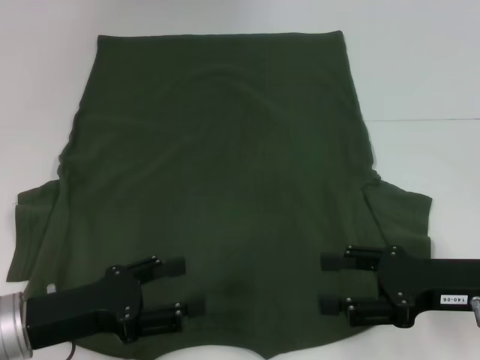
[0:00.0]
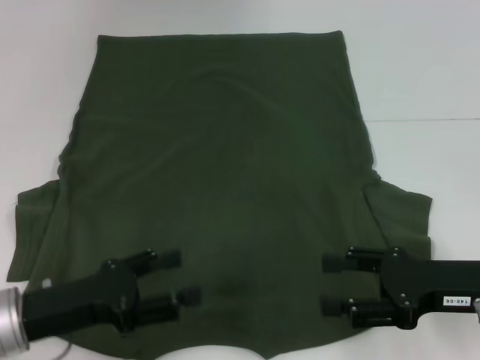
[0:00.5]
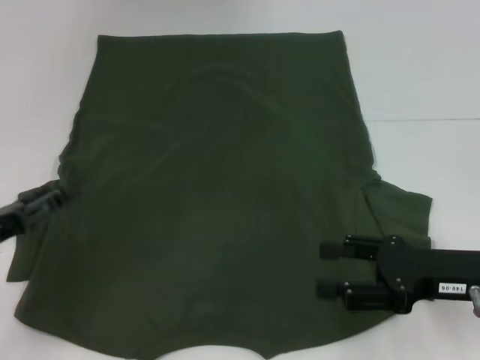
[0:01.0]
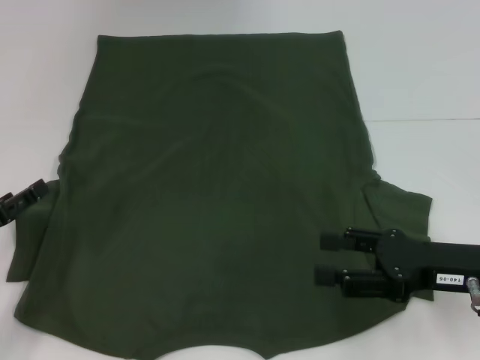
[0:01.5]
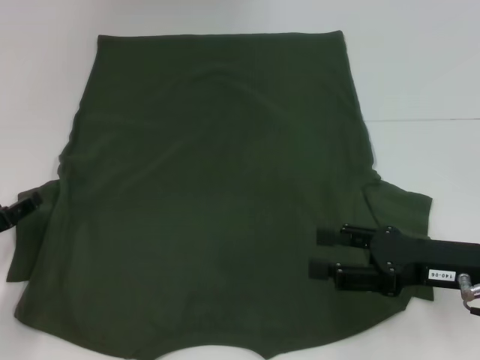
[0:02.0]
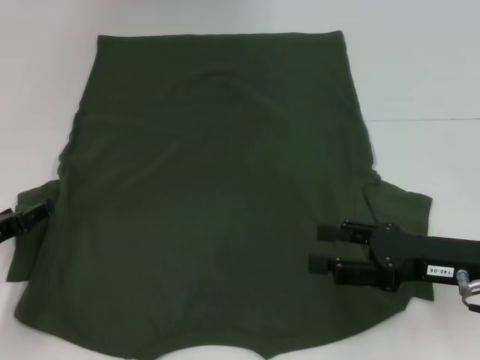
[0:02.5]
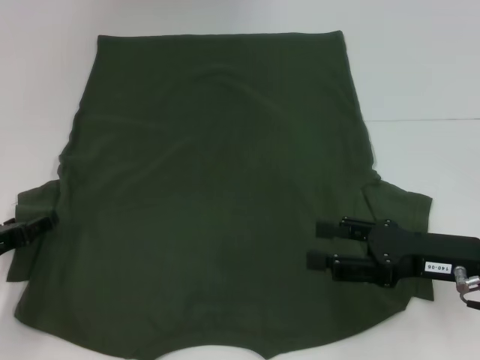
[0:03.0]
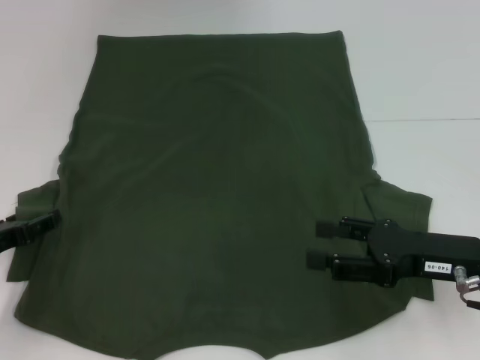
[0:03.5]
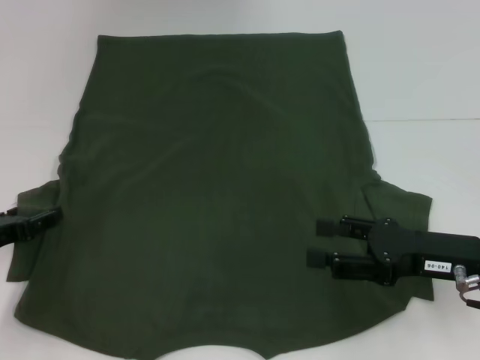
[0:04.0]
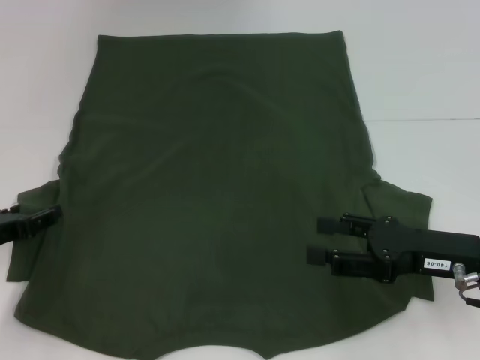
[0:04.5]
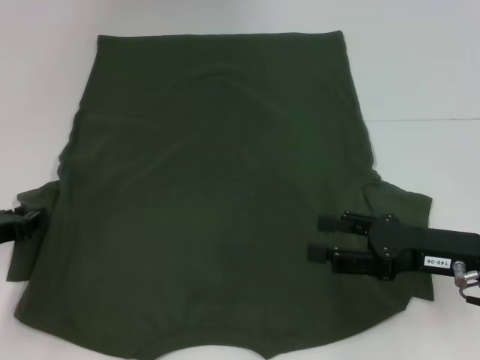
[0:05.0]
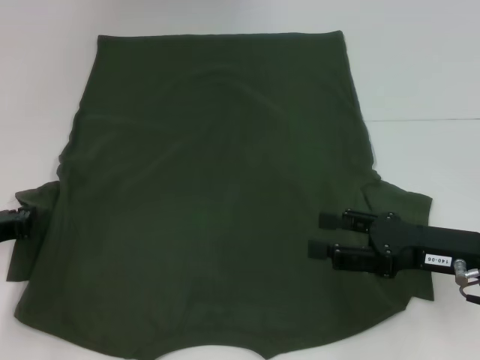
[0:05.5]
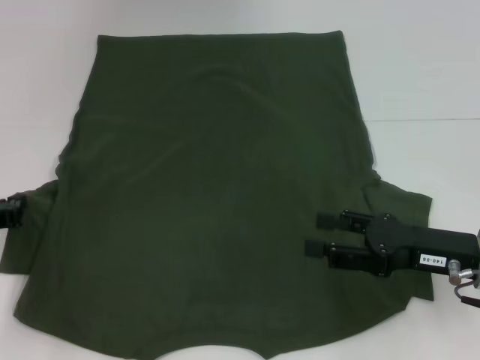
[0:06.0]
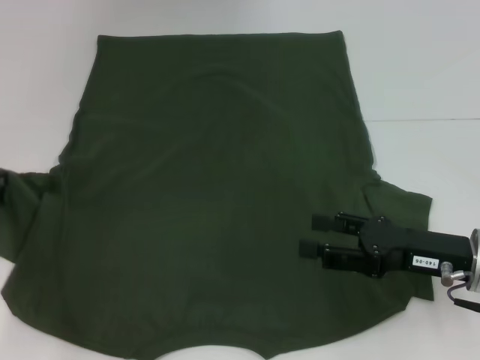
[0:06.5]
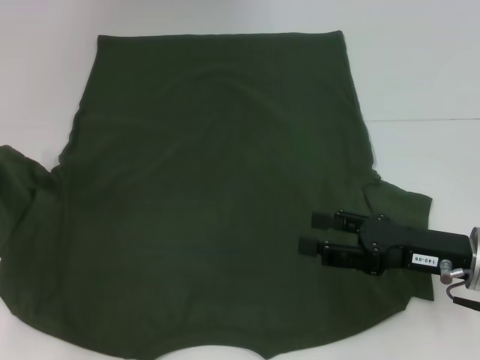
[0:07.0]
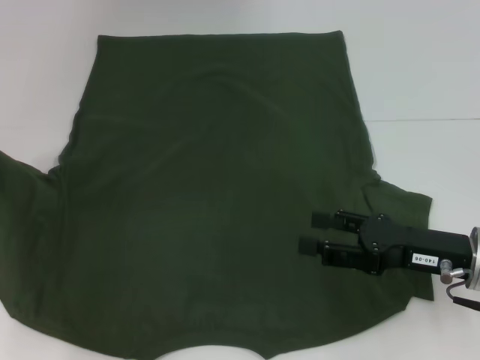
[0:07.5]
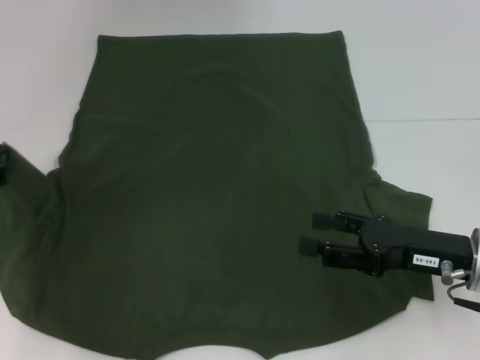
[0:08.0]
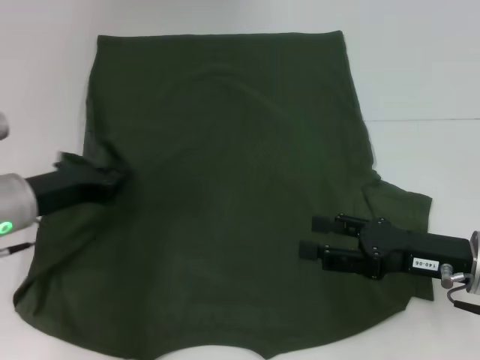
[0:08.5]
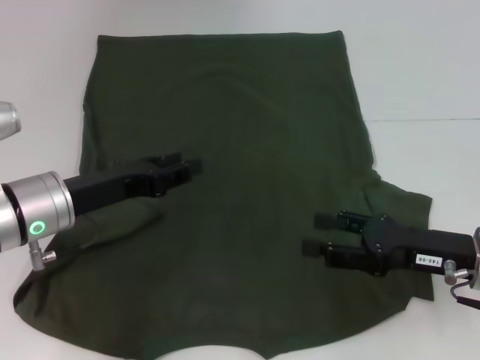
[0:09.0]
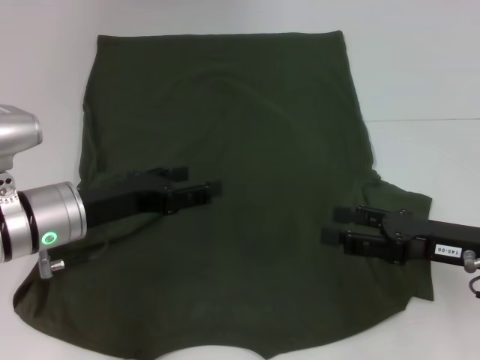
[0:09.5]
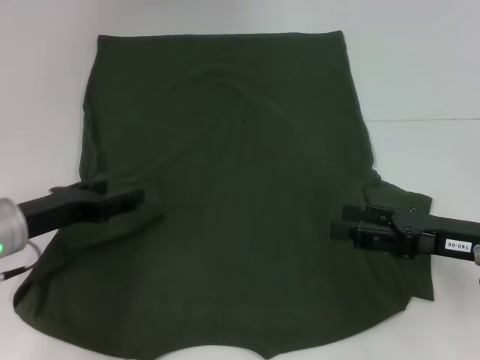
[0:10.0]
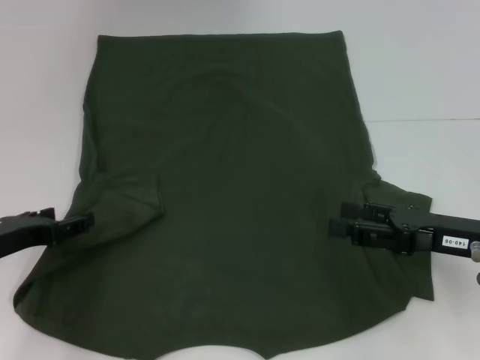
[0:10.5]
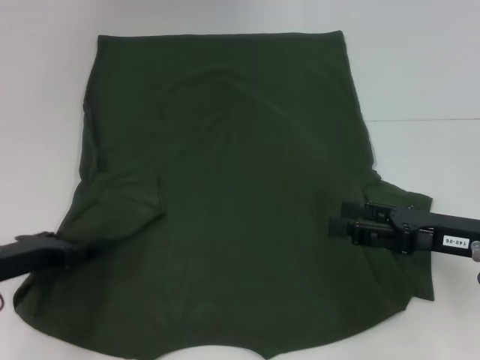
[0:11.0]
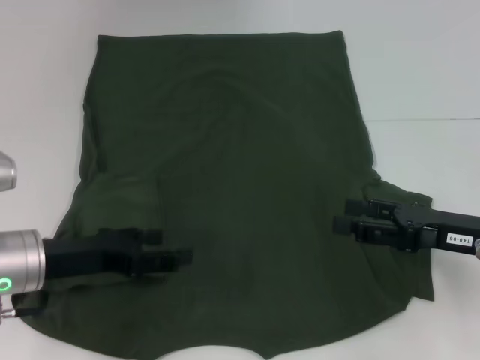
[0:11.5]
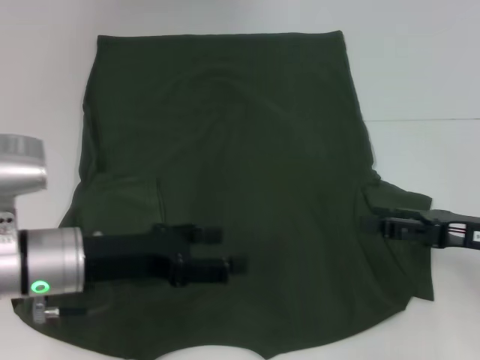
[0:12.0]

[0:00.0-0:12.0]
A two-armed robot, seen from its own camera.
Step, 0:00.0 to 0:12.0: Fold the bottom left sleeve with your left hand.
0:00.0 to 0:02.0: The left gripper travels to the left and forward by approximately 10 cm.
0:02.0 to 0:04.0: There are only small adjustments of the grippers.
0:04.0 to 0:06.0: The left gripper closes its fingers.
0:06.0 to 0:08.0: The left gripper shifts by about 5 cm.
0:08.0 to 0:10.0: The left gripper shifts approximately 5 cm to the right, and opens up.
0:10.0 to 0:12.0: The left gripper goes approximately 5 cm to the right.

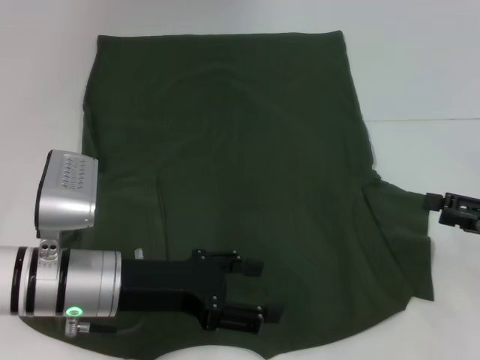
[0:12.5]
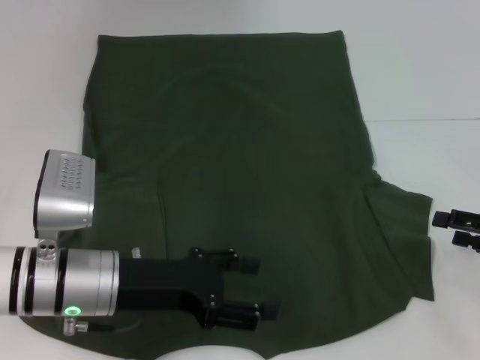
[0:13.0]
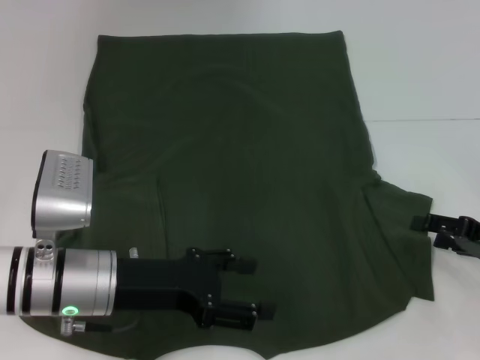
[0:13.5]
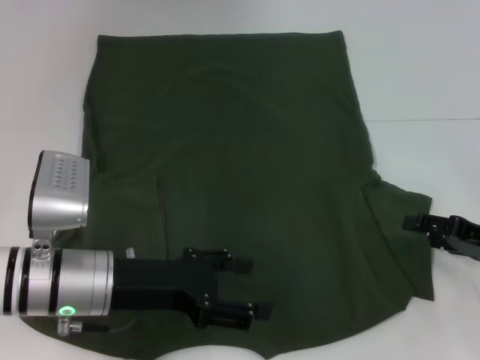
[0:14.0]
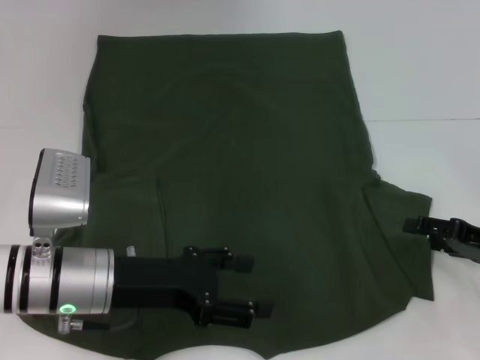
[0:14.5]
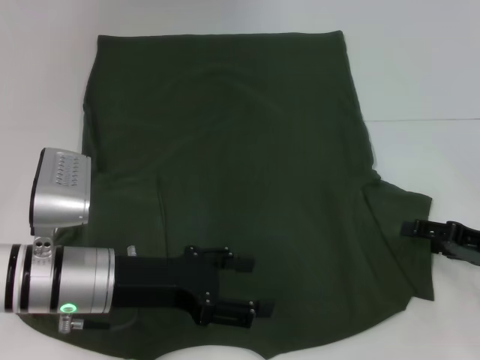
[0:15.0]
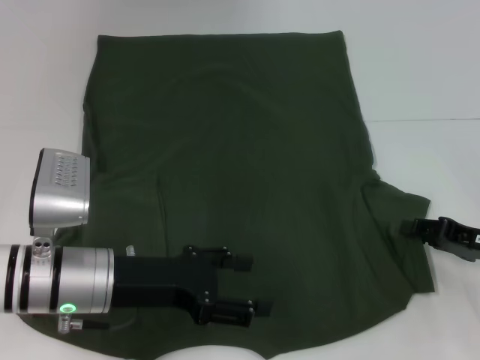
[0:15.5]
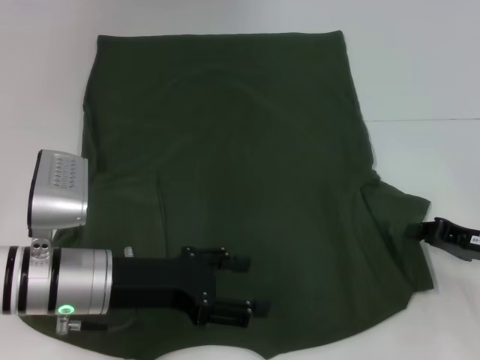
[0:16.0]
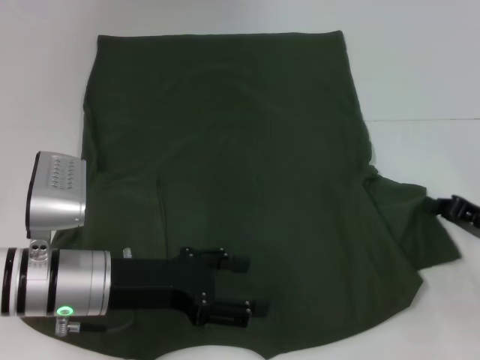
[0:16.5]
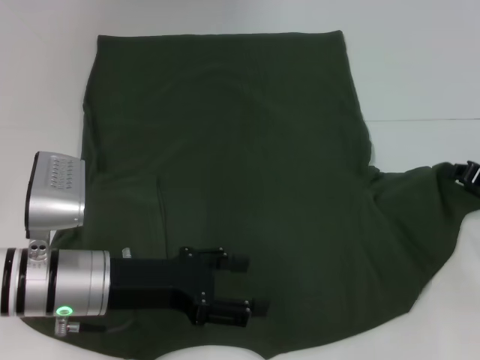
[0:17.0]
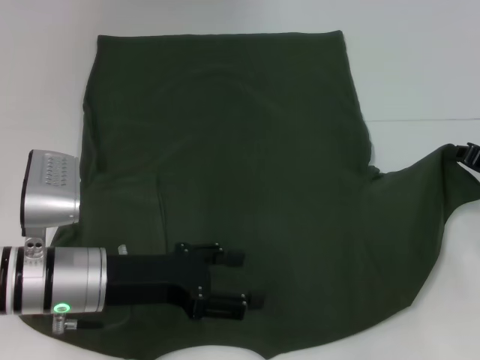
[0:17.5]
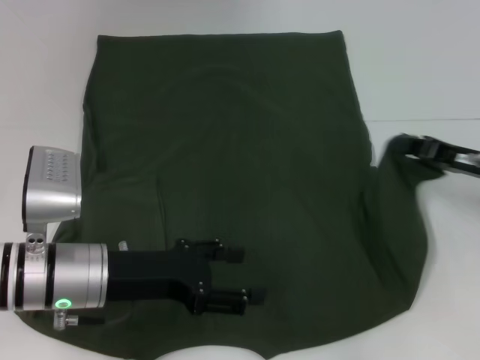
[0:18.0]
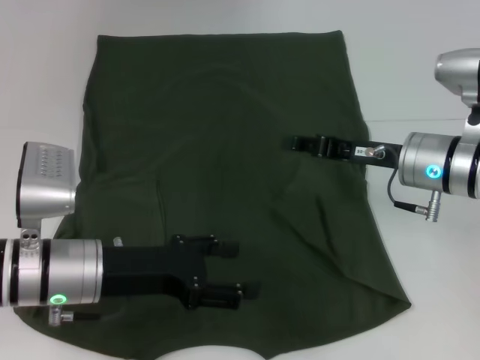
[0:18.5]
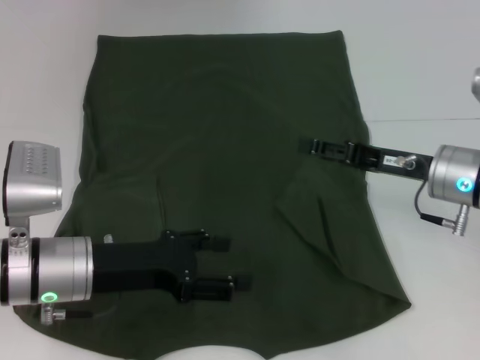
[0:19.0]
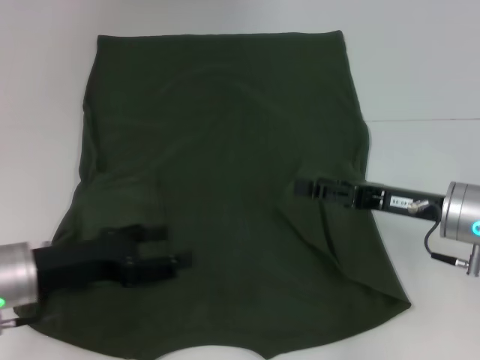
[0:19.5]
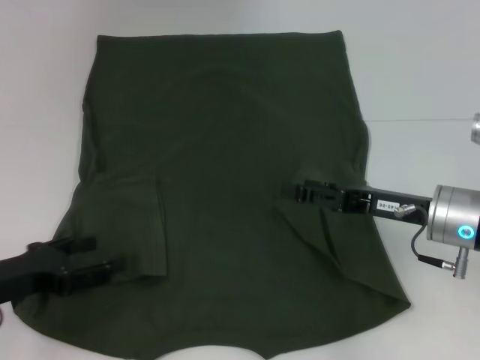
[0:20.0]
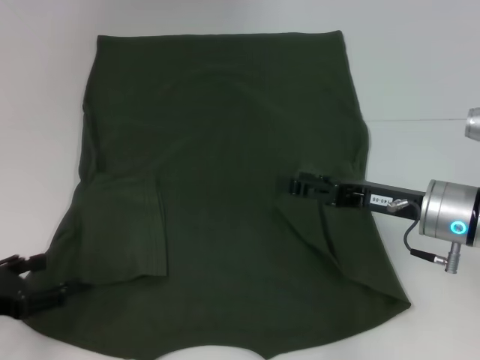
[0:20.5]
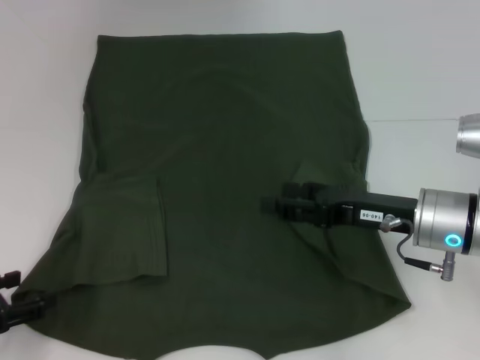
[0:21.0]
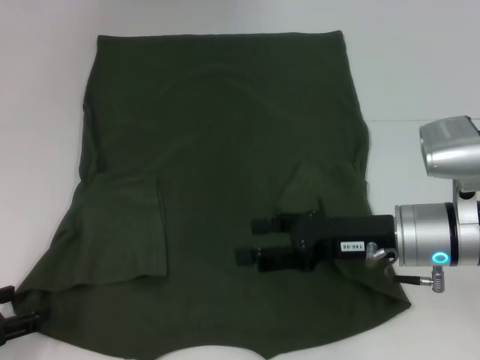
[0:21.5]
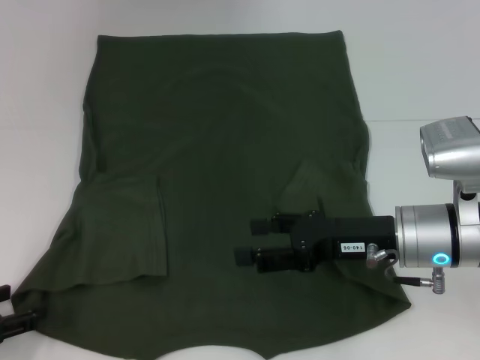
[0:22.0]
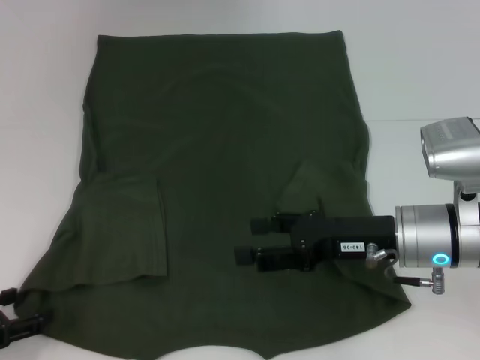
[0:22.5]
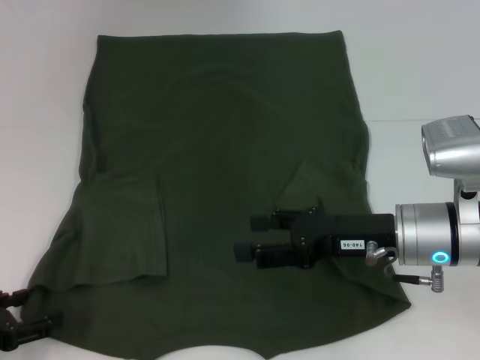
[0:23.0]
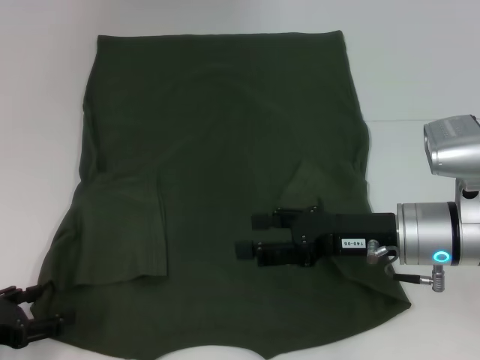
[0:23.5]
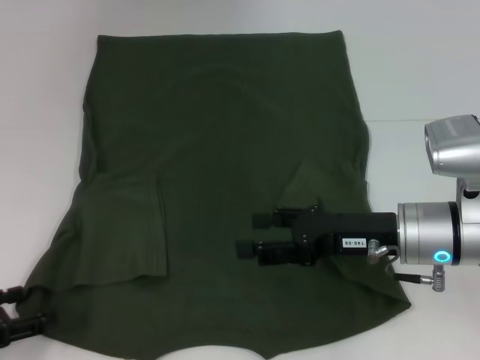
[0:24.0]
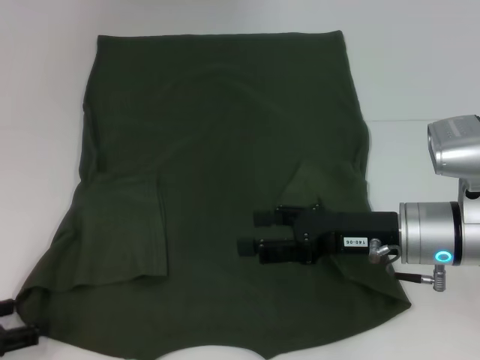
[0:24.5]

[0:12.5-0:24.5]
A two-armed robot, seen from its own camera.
Step, 0:12.5 to 0:19.0: Fold the bottom right sleeve with your right hand.
0:12.5 to 0:14.5: The grippers move only a little.
0:14.5 to 0:16.5: The right gripper closes up.
0:16.5 to 0:18.5: The right gripper shifts about 15 cm to the left, forward and upward.
0:18.5 to 0:20.5: The left gripper moves to the left, some 15 cm; the right gripper changes place by roughly 5 cm, and opens up.
0:22.5 to 0:24.5: The grippers stay close to where they were, moving slightly.

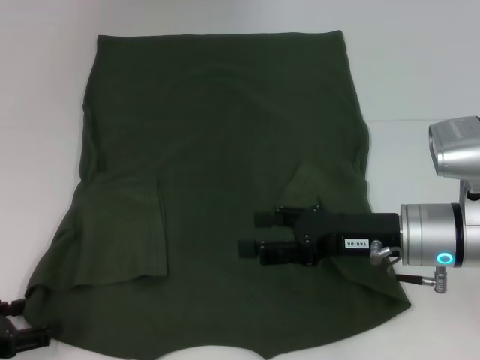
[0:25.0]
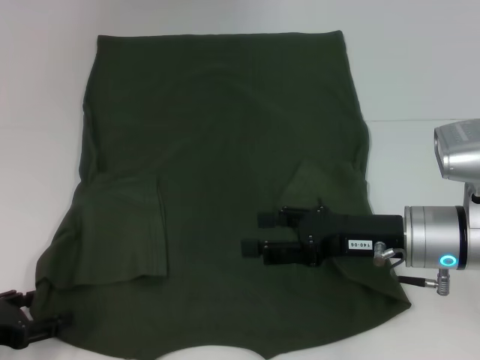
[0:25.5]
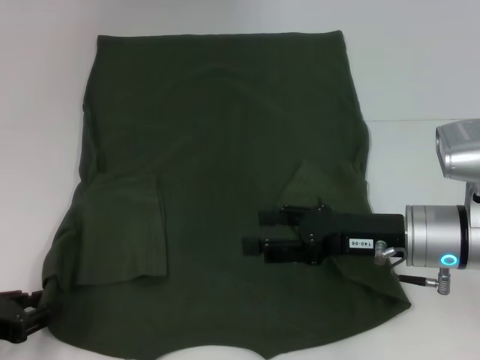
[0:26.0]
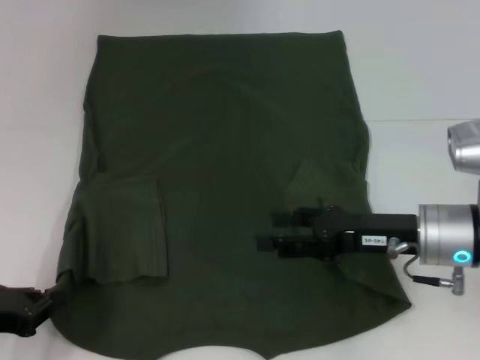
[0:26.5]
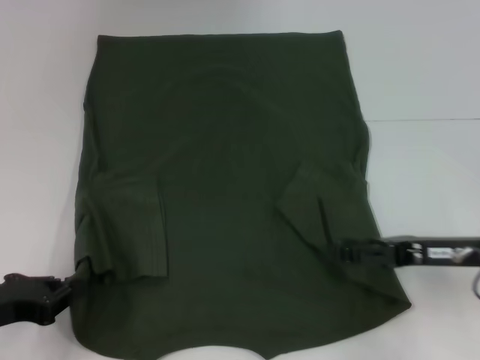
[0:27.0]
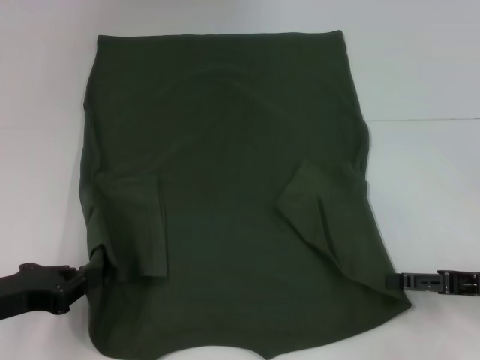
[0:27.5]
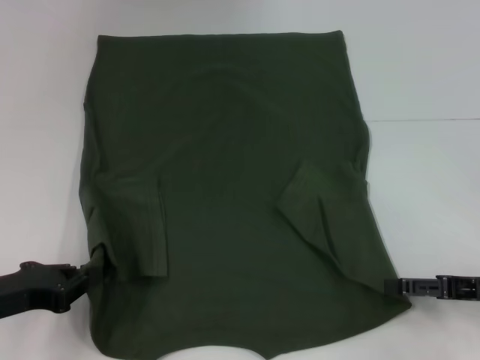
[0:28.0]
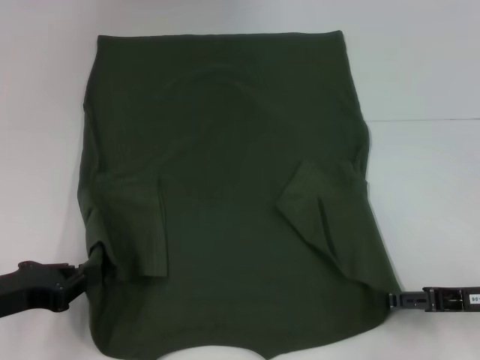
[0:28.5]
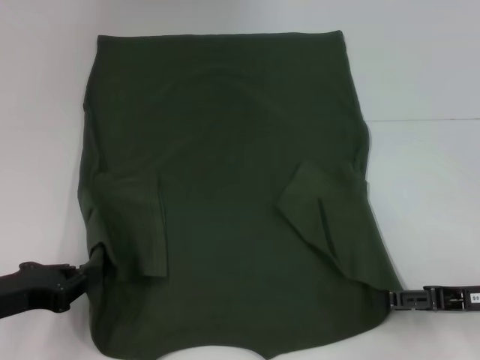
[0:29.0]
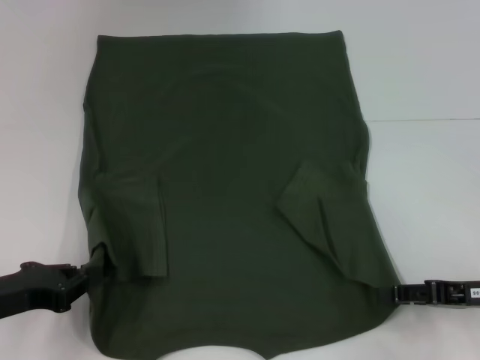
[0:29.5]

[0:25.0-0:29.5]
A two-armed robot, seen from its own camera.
Step, 0:25.0 to 0:27.0: Grab the bottom left corner with your left hand.
0:25.0 to 0:27.0: The right gripper moves to the right, approximately 10 cm. The left gripper closes.
0:27.0 to 0:29.5: The right gripper shifts by approximately 5 cm.
